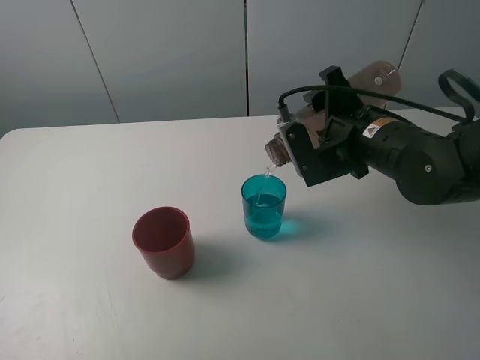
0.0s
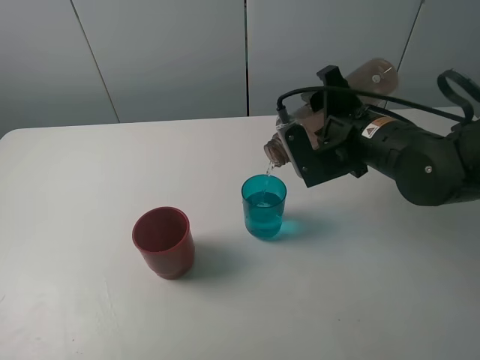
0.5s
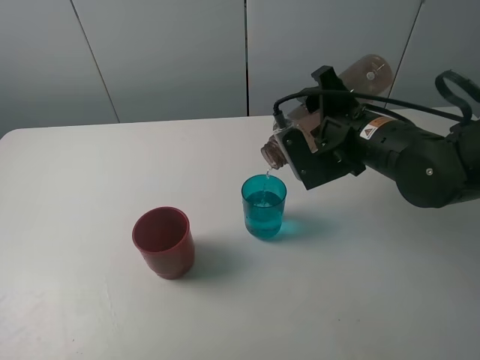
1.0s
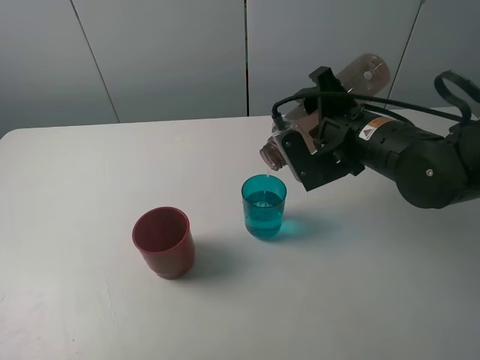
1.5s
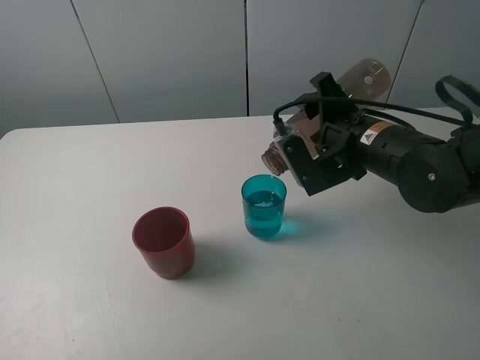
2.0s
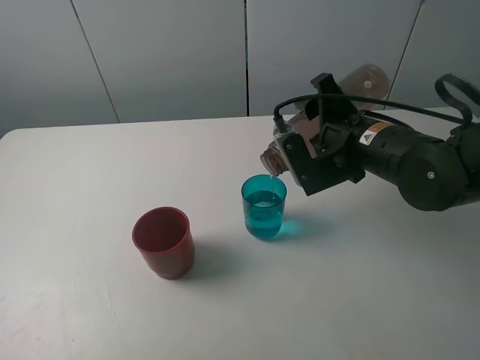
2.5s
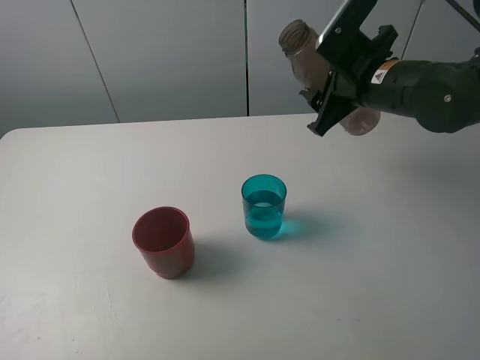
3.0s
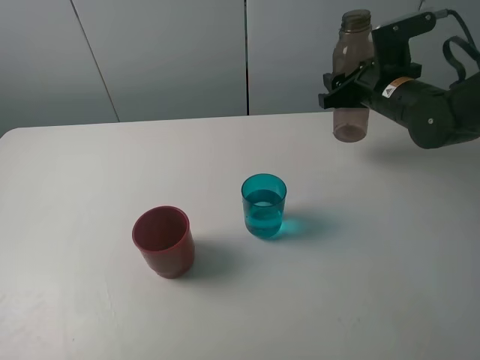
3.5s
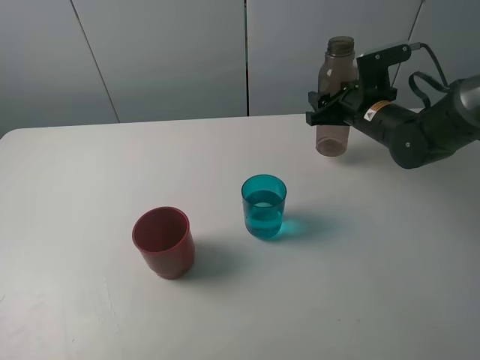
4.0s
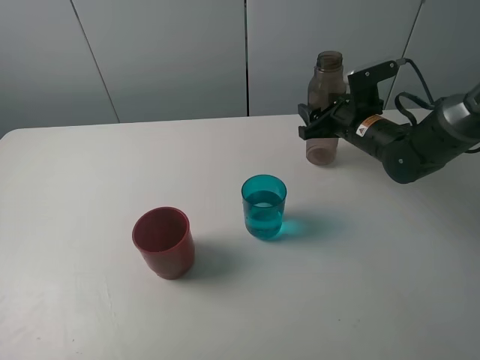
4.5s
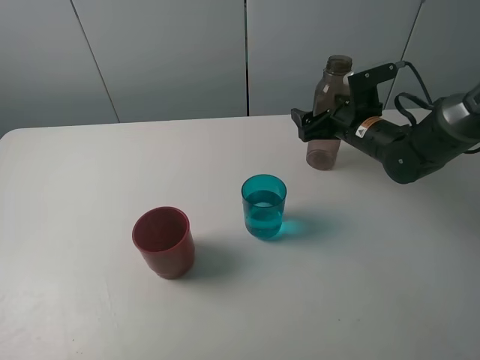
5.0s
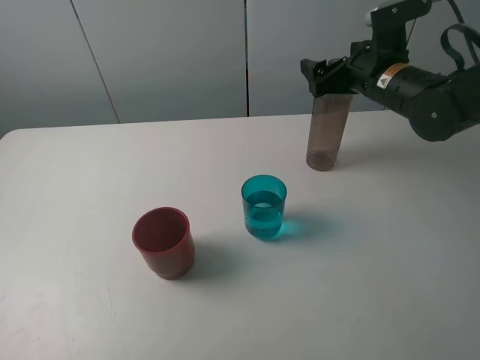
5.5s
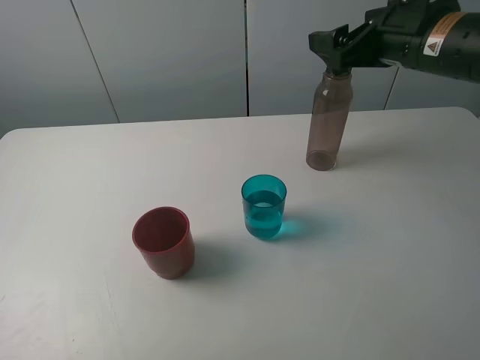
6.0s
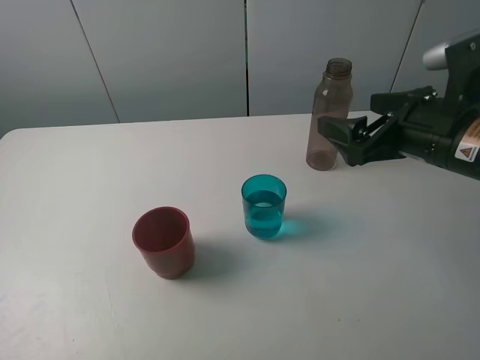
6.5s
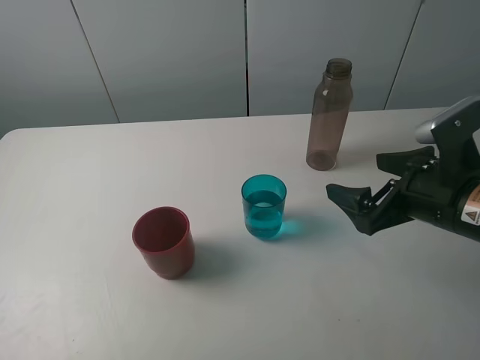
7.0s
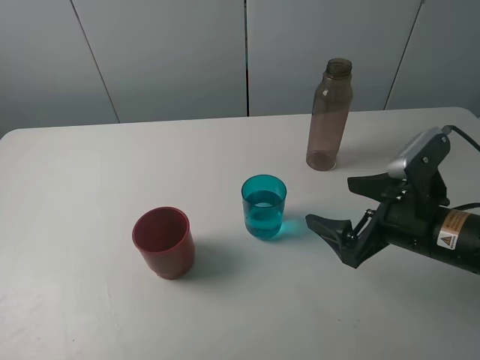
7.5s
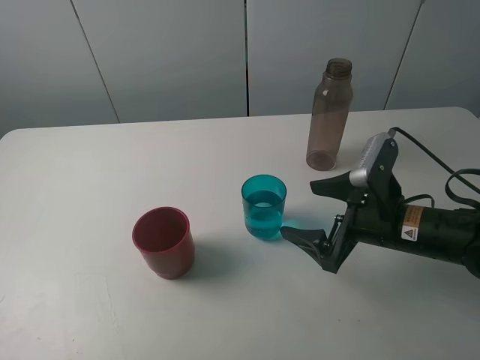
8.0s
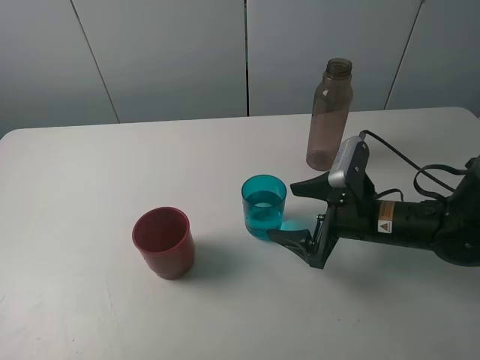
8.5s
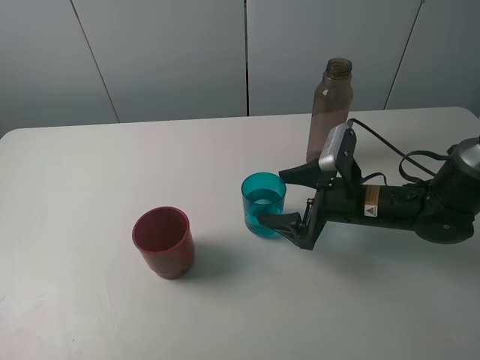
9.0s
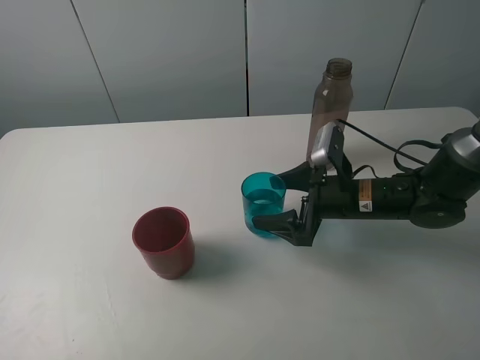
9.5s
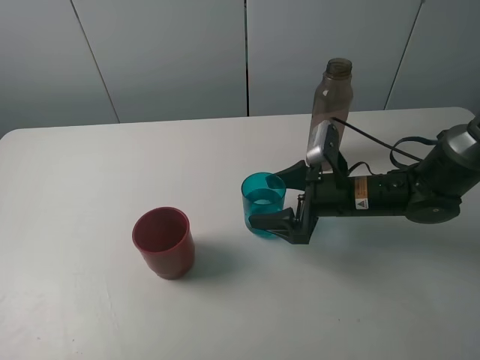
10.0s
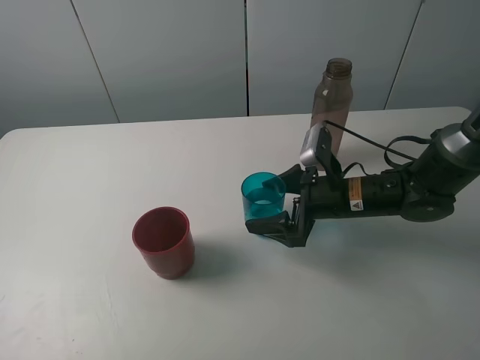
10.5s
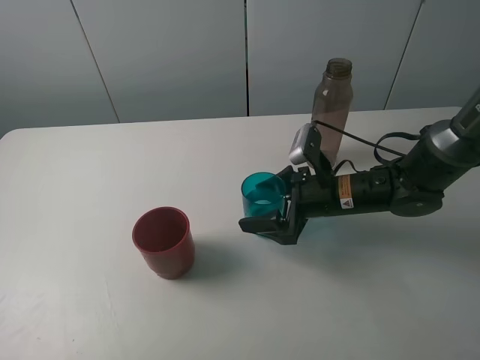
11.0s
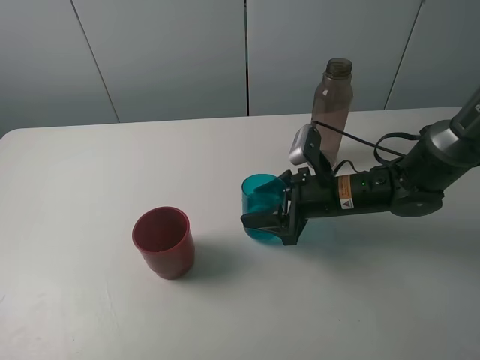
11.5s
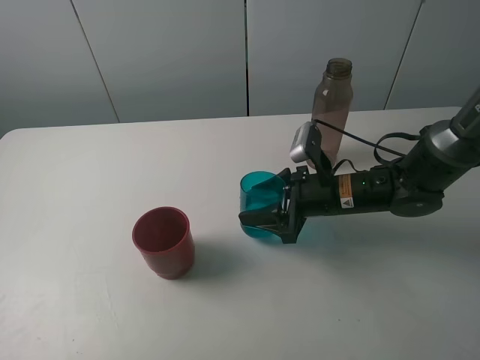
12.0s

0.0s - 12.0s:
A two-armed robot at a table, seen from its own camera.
Task of the whole recording: pick up the bottle and pour water into the cup, then pick up the cup containing water and pour it into another cup.
Step, 0.0s - 2.0s: Pour water from brown bottle to blue cup with the right gripper.
Step, 2.5s - 5.0s: Place the brown bottle with the right gripper.
Step, 5.5s - 11.0s: Grasp the blue cup with the right gripper.
0.0s - 2.0s: The grippers make only small movements.
2.0s - 4.0s: The right gripper heads forward and to the right, covering about 15 cm.
4.0s - 6.0s: The right gripper travels upward and backward by about 15 cm, and opens its fingers.
6.0s - 8.0s: The right gripper is displaced downward and backward by about 20 cm.
8.0s - 10.0s: The right gripper goes roughly 5 cm forward.
10.0s - 12.0s: The right gripper closes up.

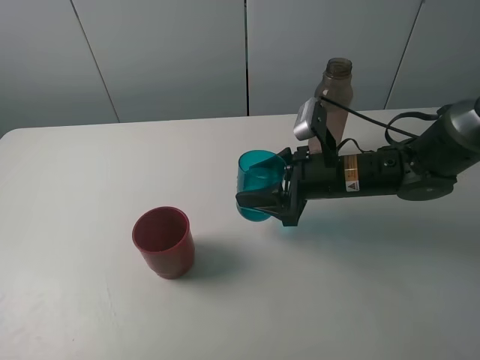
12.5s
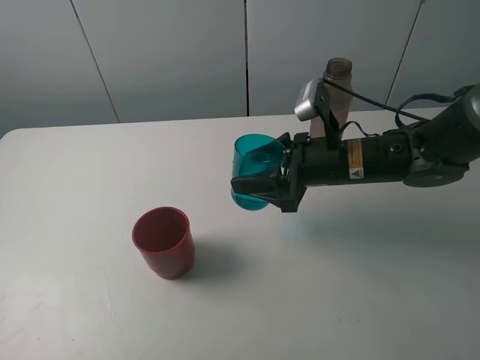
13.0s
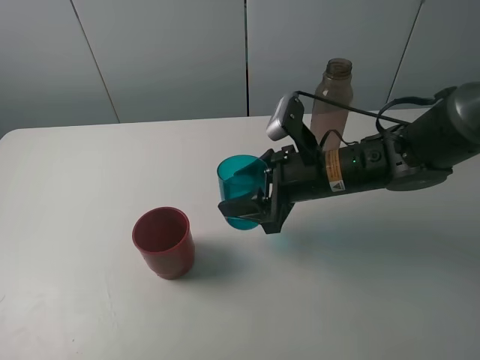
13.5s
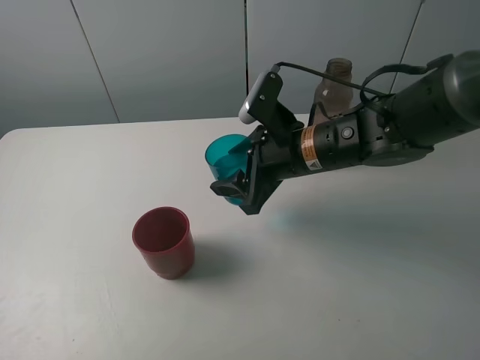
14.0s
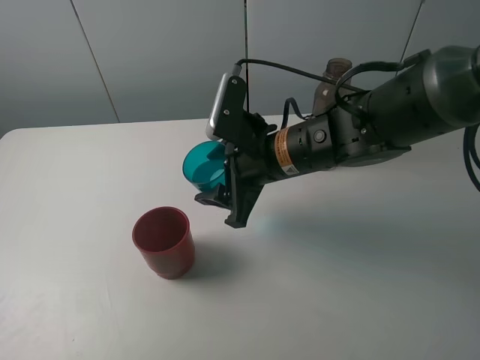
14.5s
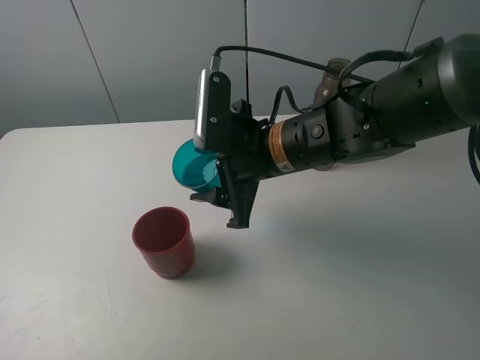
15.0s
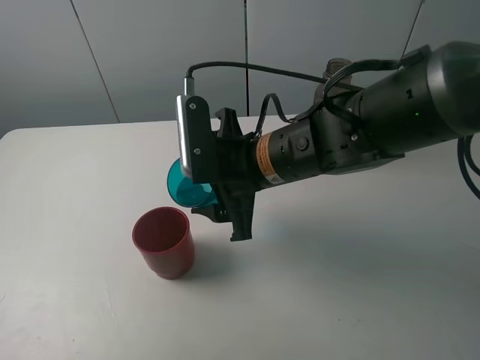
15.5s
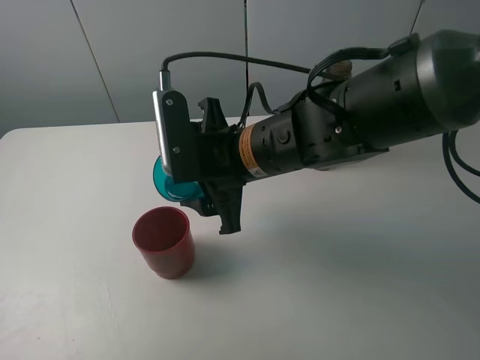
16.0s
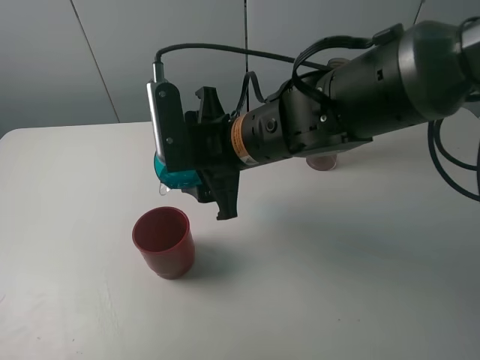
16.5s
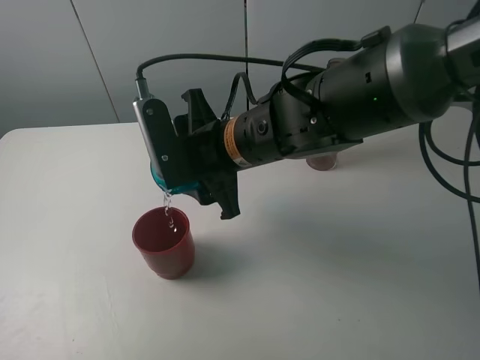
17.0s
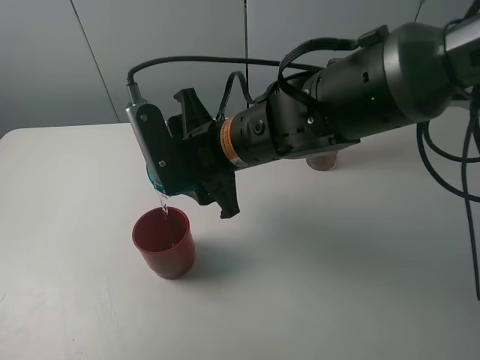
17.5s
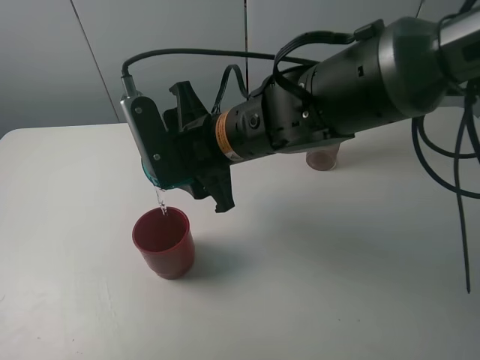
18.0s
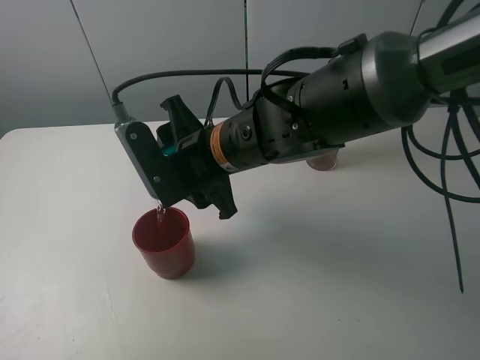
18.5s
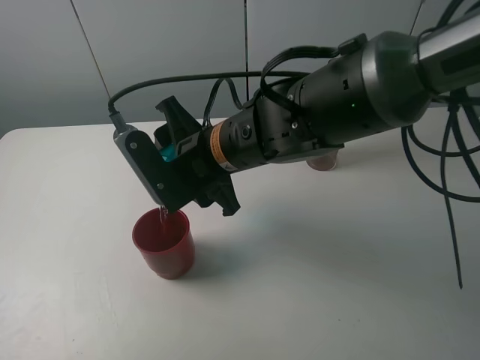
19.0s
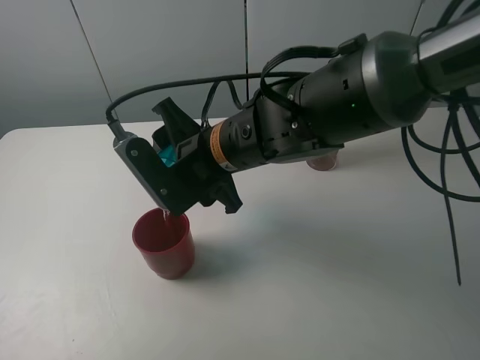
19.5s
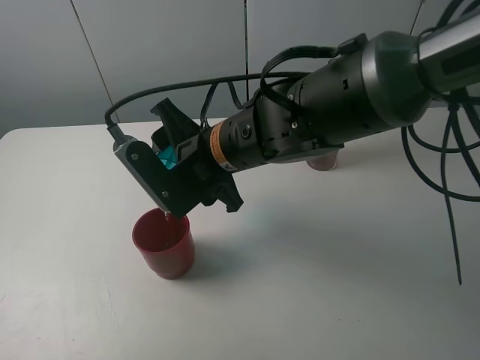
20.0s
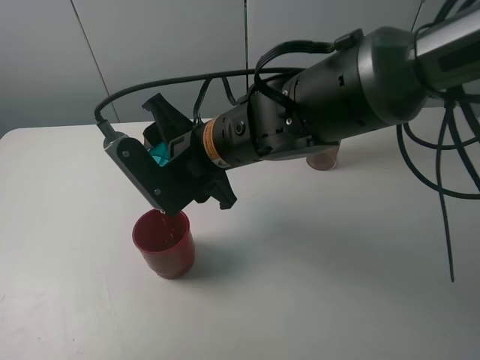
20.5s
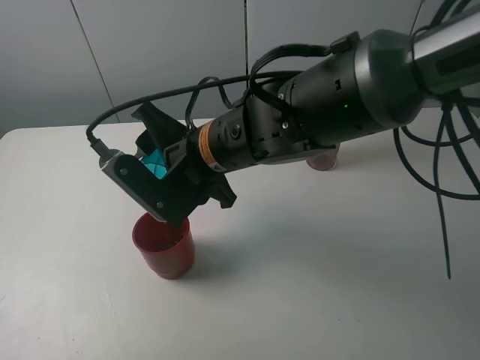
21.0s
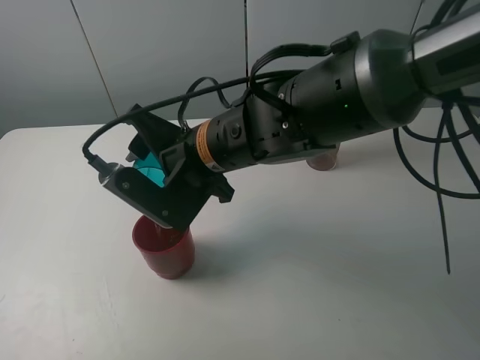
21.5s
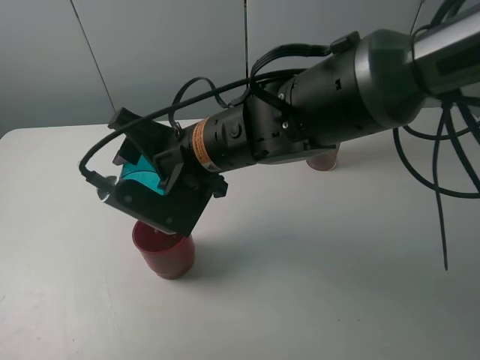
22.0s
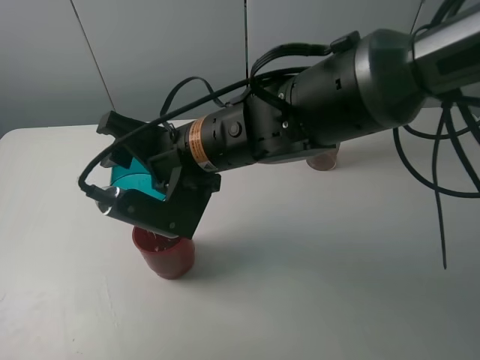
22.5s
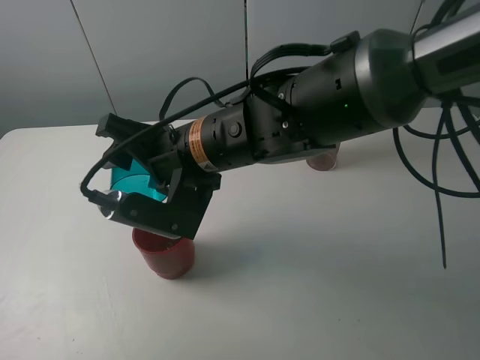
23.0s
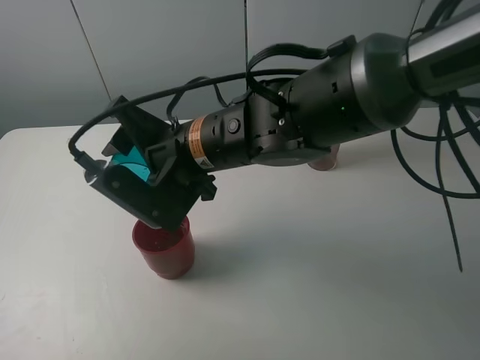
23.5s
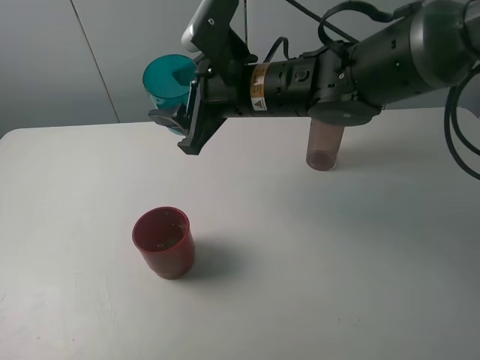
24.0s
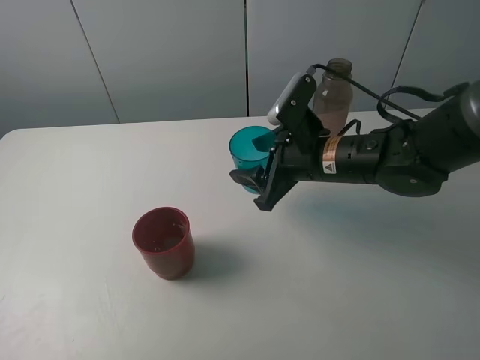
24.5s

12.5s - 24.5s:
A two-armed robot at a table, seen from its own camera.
Task of the whole recording: pick up the bottle and pour water into the cup, then pick up the cup containing water and pour it into another cup.
Step, 12.5s - 23.5s: Pour water from blue cup to red cup with the right gripper.
12.5s - 14.5s: The right gripper moves to the left and upward, some 10 cm.
14.5s - 16.5s: The right gripper moves approximately 5 cm.
18.5s - 20.5s: The grippers make only small movements.
22.5s - 24.5s: The right gripper travels to the right by roughly 15 cm.

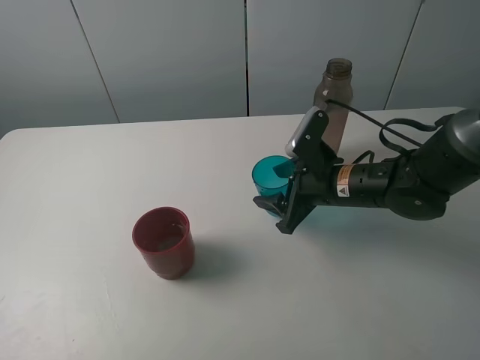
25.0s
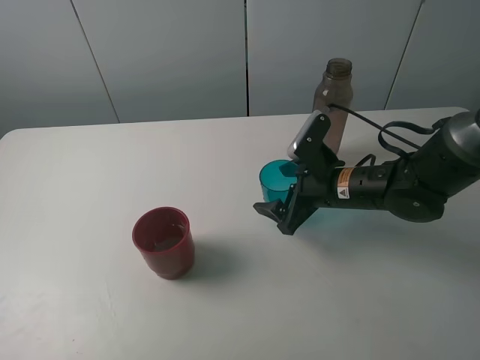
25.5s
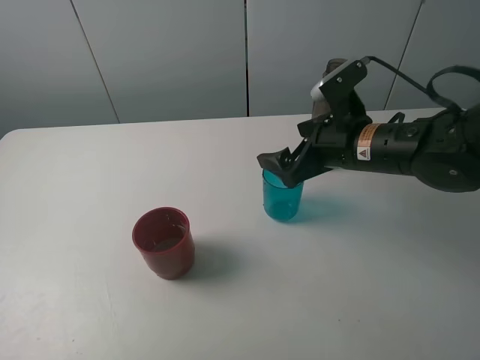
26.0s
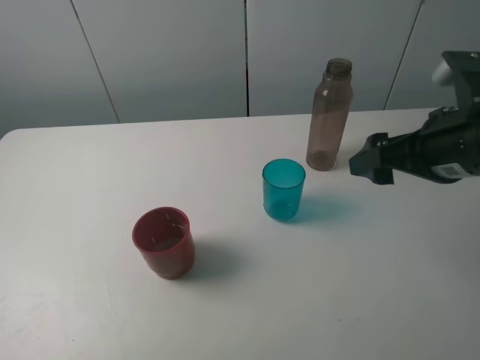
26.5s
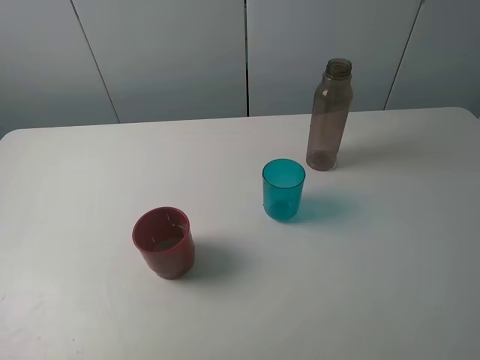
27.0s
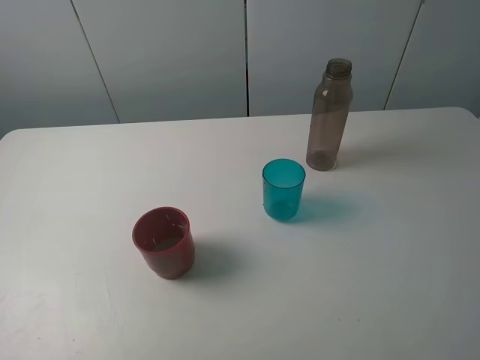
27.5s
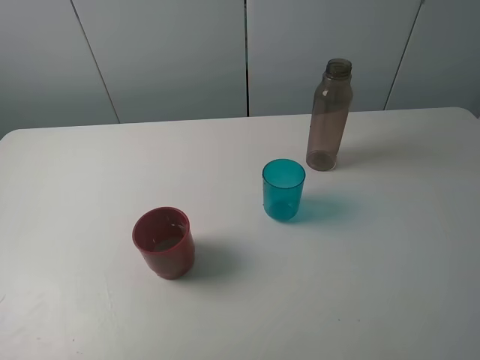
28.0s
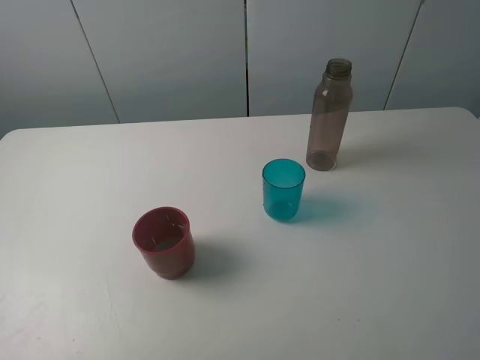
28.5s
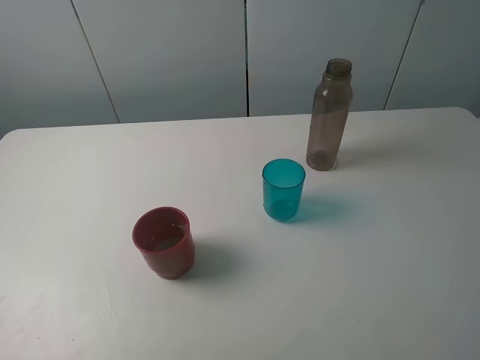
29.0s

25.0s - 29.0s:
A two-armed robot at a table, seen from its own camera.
Task of the whole recording: pick up the bottle and pour water into the cup, then pick up the cup containing water and pour it into another cup.
25.0s - 27.0s: The right gripper travels backward, upward and to the right by approximately 35 cm, and opens its fingers.
